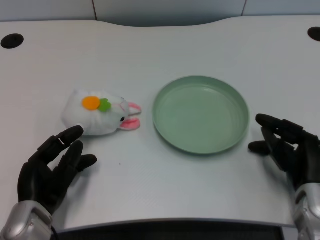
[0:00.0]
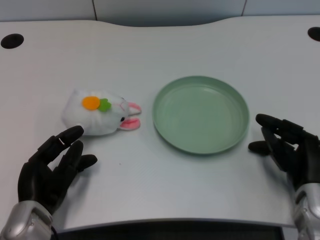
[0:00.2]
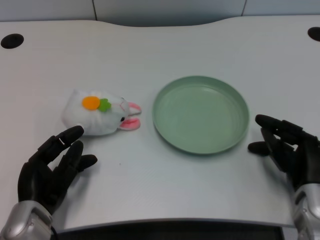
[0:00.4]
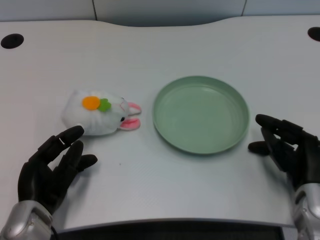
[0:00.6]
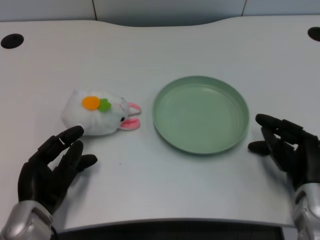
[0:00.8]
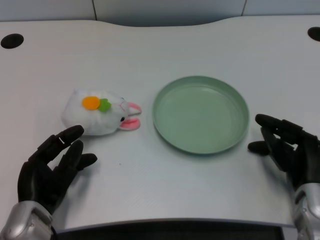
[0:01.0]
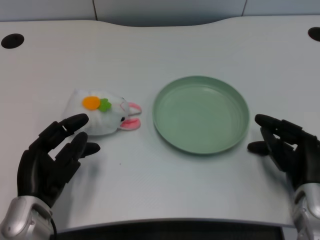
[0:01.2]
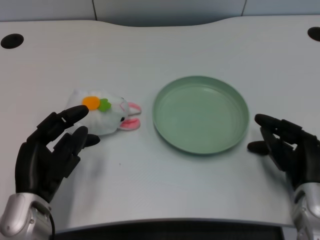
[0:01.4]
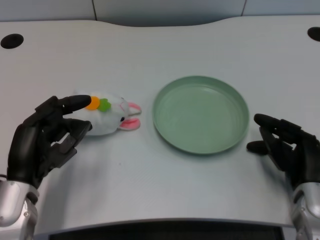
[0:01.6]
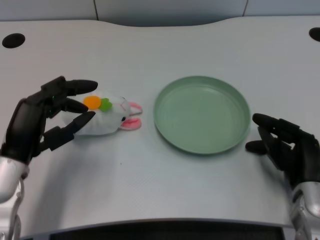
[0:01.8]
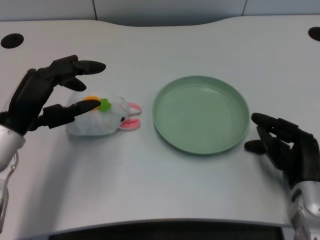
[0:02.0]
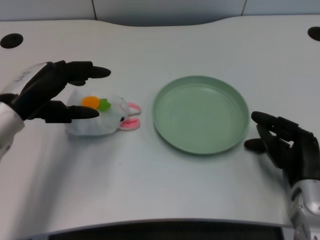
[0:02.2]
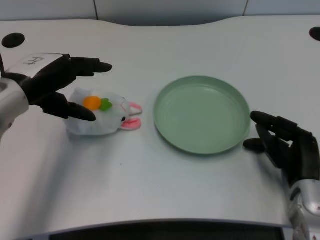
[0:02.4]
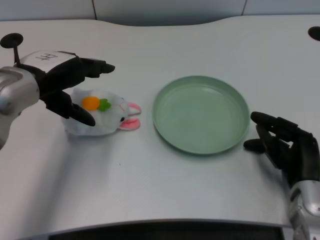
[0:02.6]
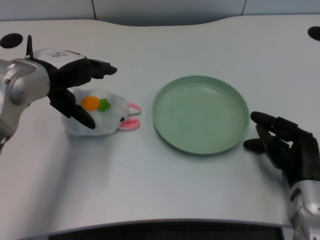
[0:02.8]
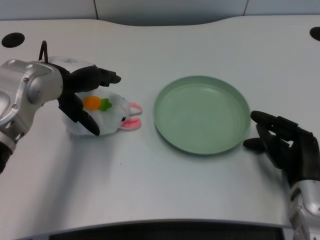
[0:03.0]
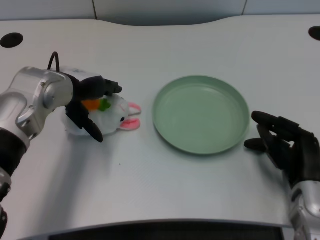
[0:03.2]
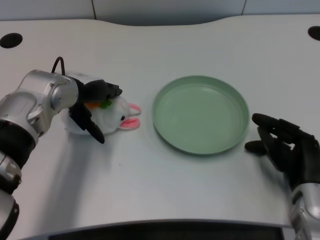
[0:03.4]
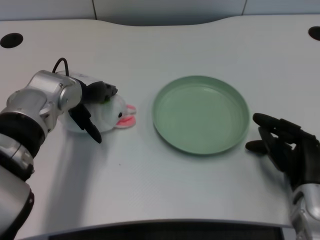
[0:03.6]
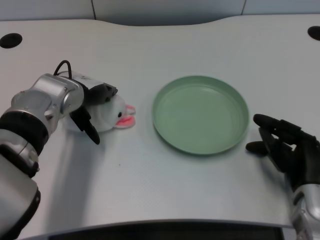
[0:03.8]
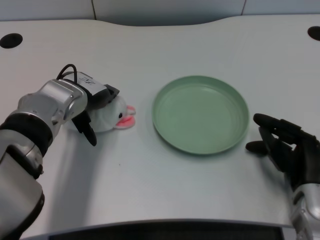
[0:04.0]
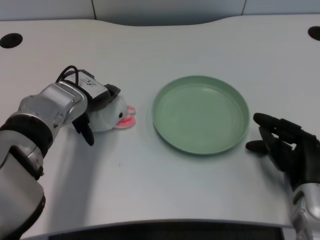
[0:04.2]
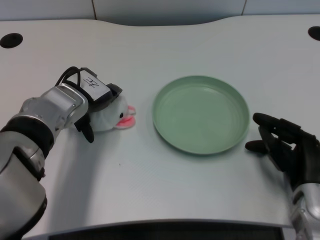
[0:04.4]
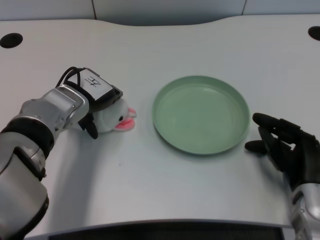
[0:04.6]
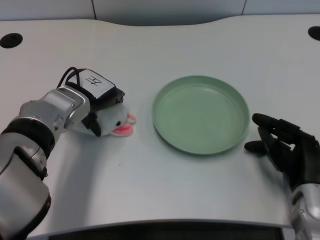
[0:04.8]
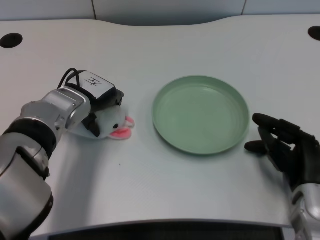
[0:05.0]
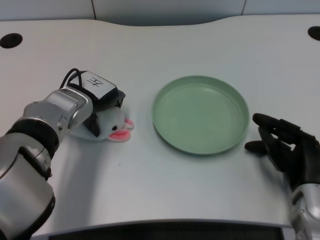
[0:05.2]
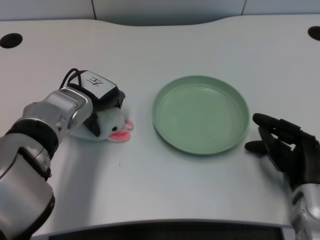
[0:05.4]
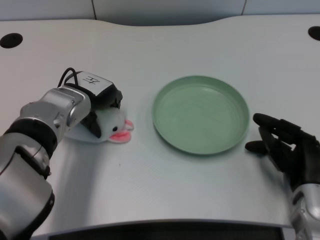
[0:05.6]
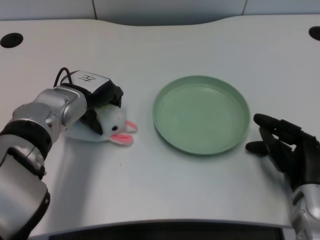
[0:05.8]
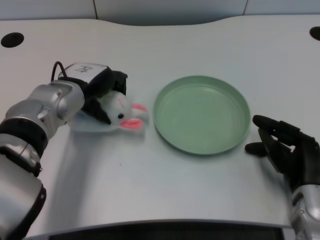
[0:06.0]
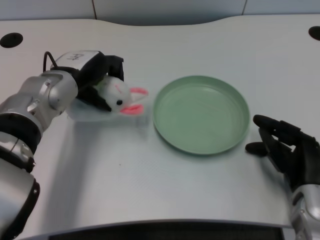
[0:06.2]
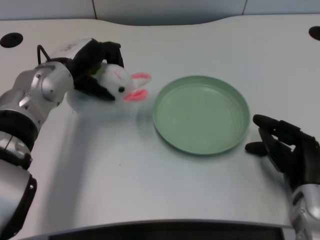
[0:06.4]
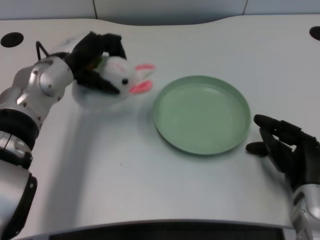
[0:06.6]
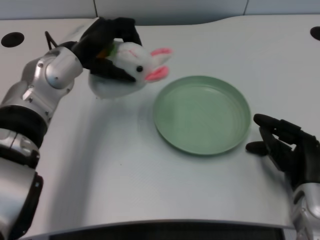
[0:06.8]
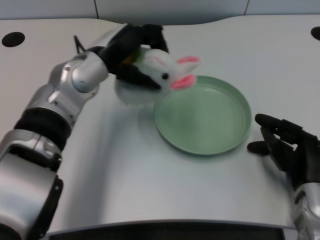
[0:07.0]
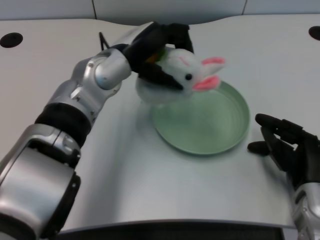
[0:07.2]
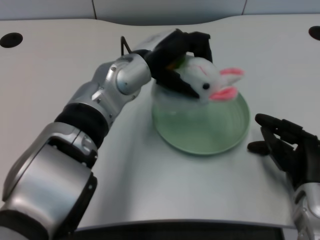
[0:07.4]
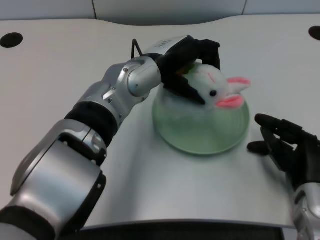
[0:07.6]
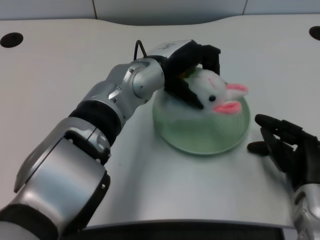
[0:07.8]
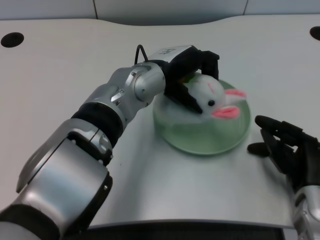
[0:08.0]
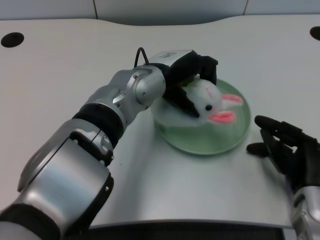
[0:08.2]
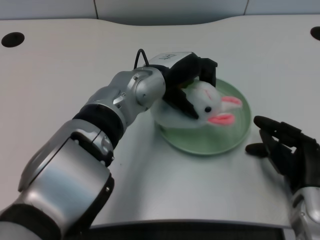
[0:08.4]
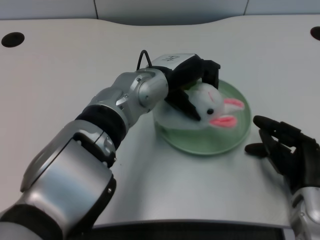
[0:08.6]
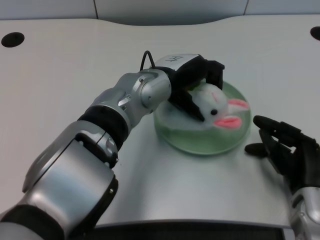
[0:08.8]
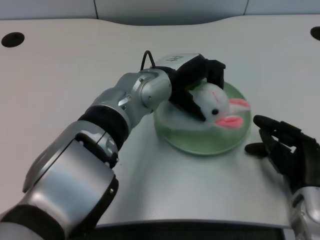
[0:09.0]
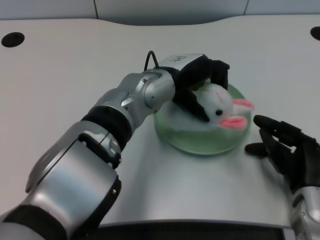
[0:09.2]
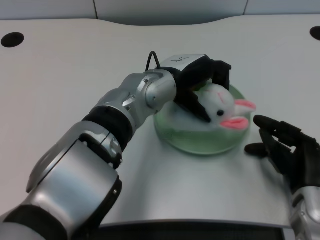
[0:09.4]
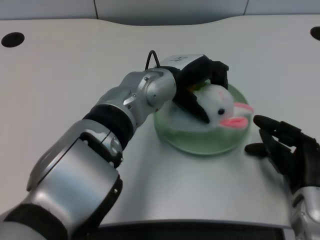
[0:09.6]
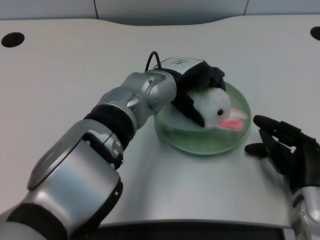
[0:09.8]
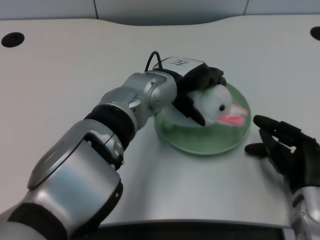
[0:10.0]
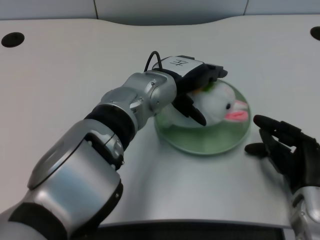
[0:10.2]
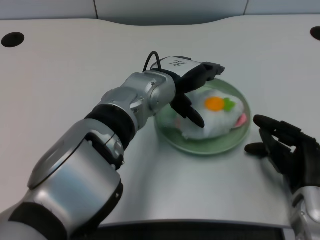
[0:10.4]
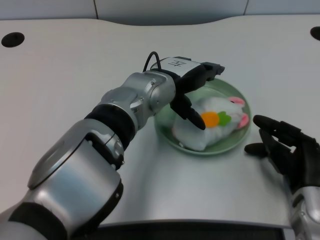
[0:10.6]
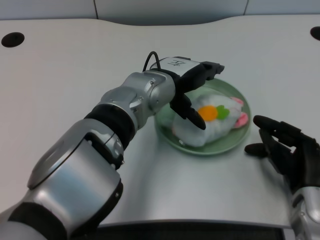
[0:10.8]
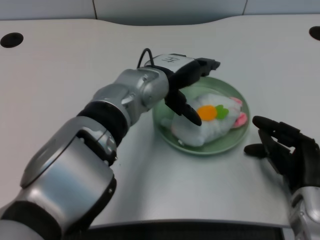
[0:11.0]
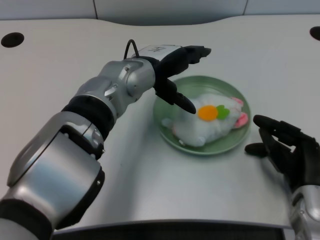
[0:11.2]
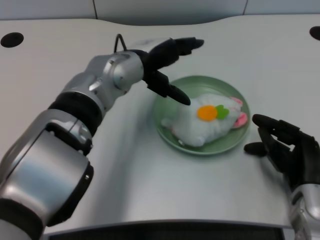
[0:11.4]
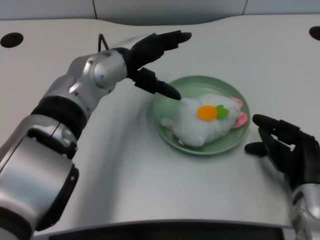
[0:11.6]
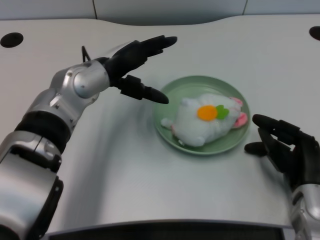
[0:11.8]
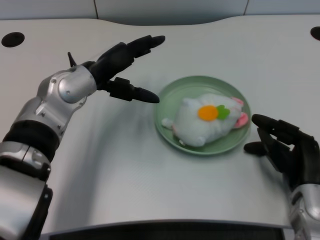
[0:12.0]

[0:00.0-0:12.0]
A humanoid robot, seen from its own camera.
Task of the whole recording: pick up the rabbit doll from the table and place it on the plate.
Step, 0:01.2 to 0:06.0: Grasp the rabbit doll with the left gripper.
Step, 0:06.2 to 0:10.4: Place the rabbit doll into the plate with the left gripper.
0:01.6 to 0:03.0: The left hand shifts approximately 15 cm forward and upward.
0:03.0 to 0:04.4: The left hand is displaced downward by approximately 5 cm.
0:06.0 to 0:07.6: The left hand moves to the right, about 10 cm.
0:09.0 to 0:10.4: The hands stay close to where they were, moving slightly.
0:10.4 to 0:12.0: The left hand is displaced to the left by some 10 cm.

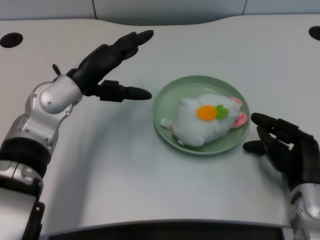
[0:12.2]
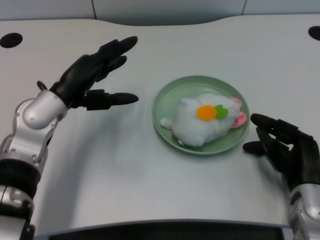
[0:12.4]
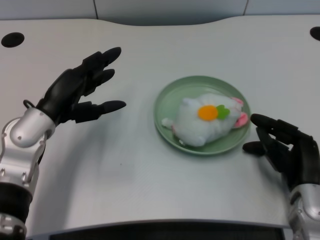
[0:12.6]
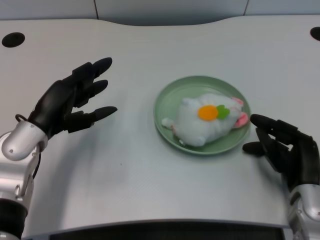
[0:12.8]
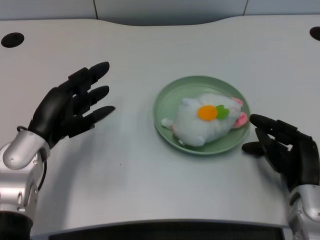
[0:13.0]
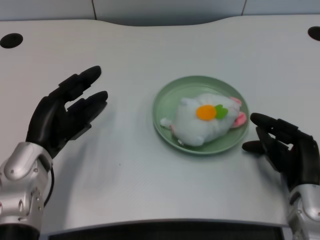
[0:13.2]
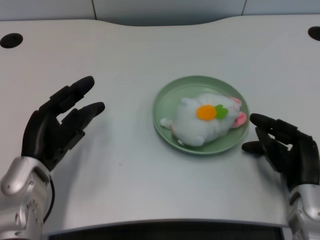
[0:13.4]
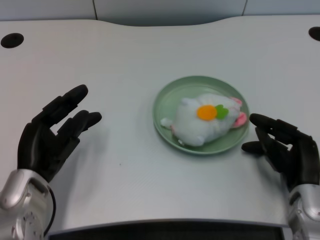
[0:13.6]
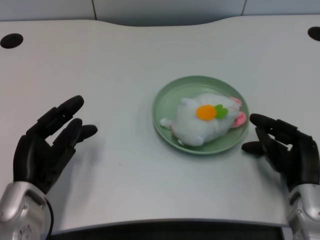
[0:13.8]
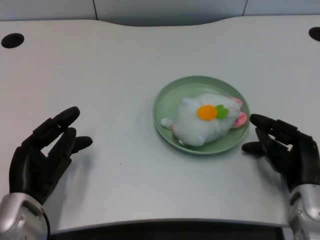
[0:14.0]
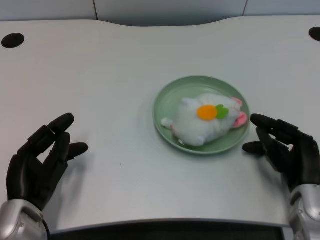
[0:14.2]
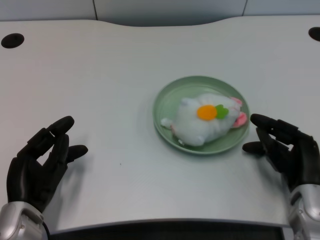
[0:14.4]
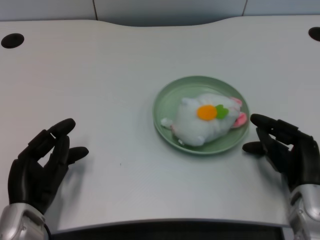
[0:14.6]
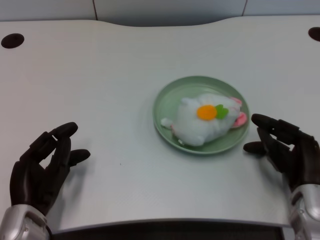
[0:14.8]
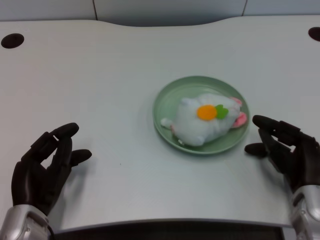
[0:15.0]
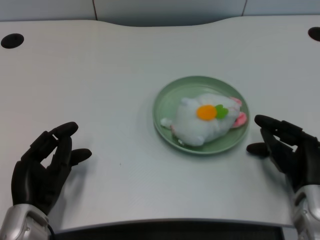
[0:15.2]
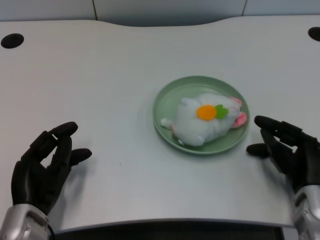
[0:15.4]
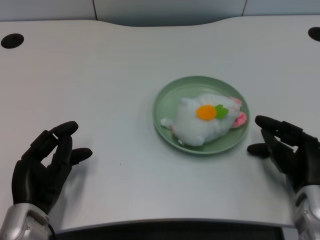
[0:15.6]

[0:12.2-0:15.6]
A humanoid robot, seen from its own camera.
Task of the whole recording: pick up the rabbit doll from the table and place it on the plate.
0:12.2 to 0:13.8: The left hand heads backward and downward, covering about 15 cm.
0:13.8 to 0:15.6: The hands stay close to where they were, moving slightly.

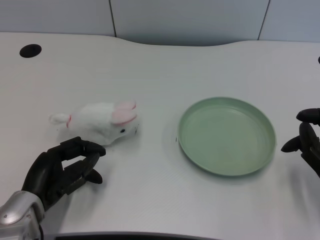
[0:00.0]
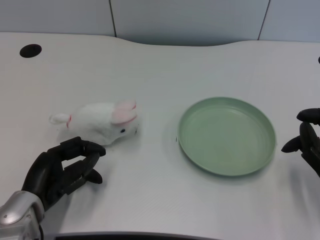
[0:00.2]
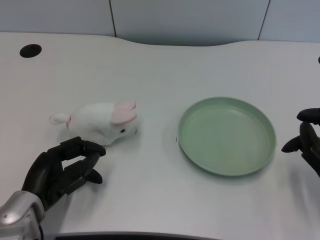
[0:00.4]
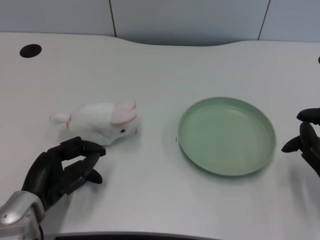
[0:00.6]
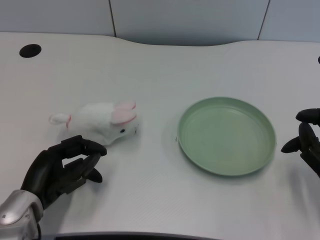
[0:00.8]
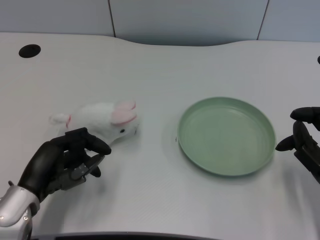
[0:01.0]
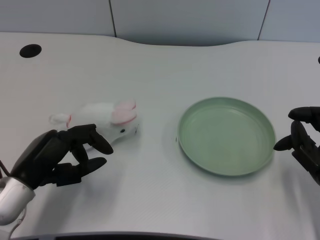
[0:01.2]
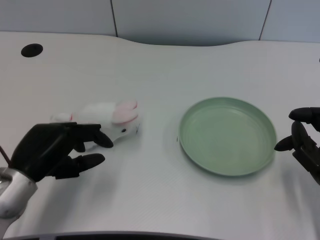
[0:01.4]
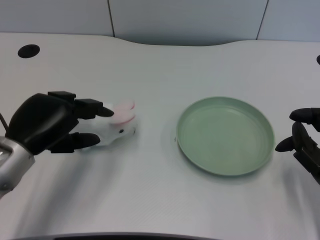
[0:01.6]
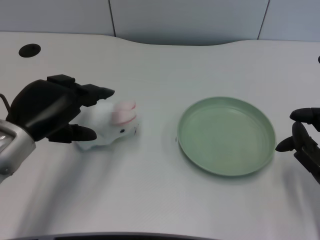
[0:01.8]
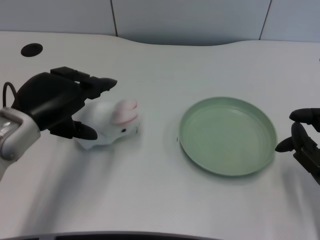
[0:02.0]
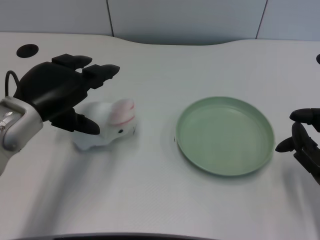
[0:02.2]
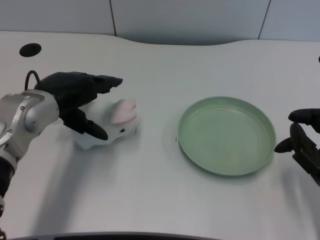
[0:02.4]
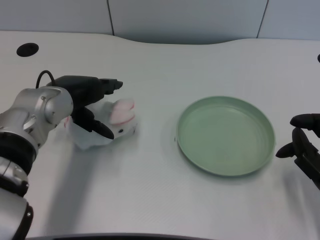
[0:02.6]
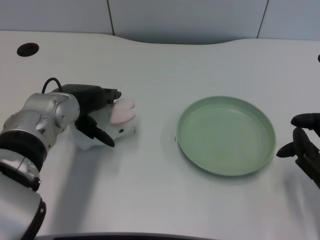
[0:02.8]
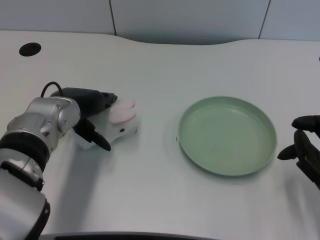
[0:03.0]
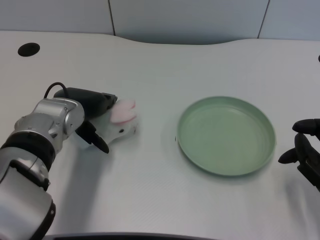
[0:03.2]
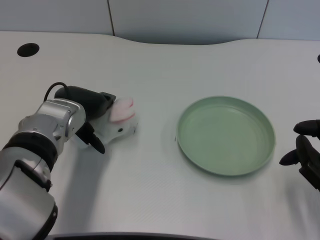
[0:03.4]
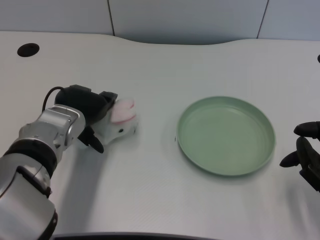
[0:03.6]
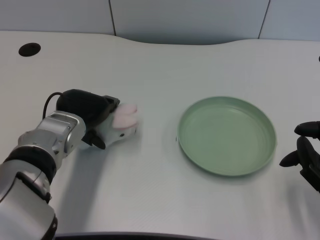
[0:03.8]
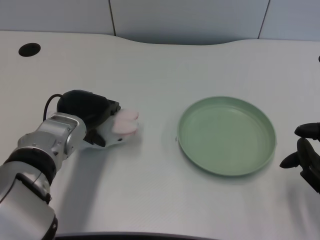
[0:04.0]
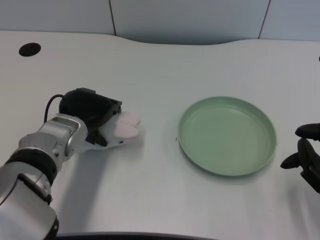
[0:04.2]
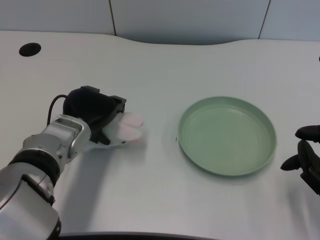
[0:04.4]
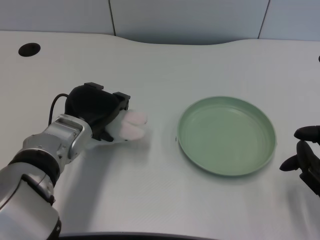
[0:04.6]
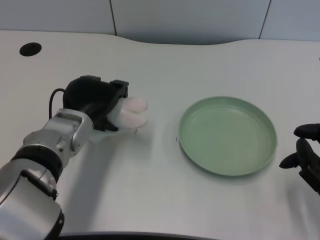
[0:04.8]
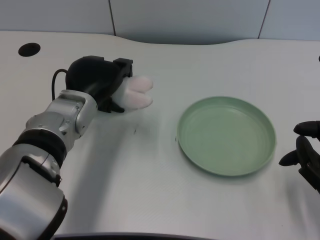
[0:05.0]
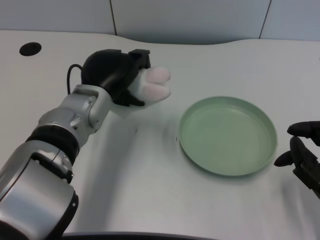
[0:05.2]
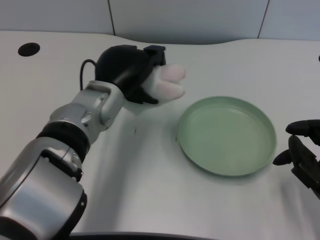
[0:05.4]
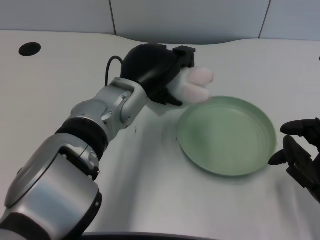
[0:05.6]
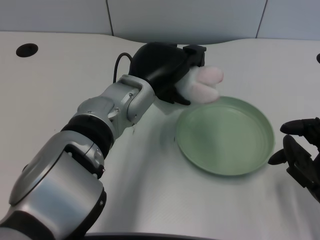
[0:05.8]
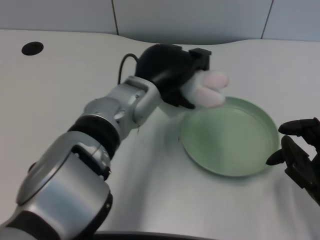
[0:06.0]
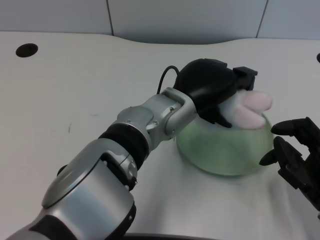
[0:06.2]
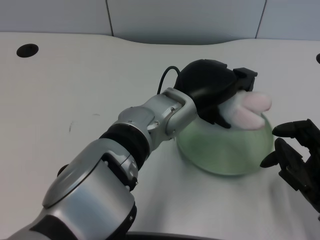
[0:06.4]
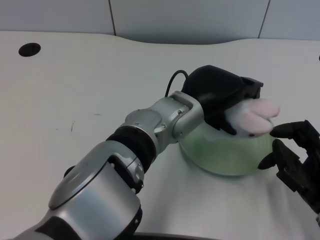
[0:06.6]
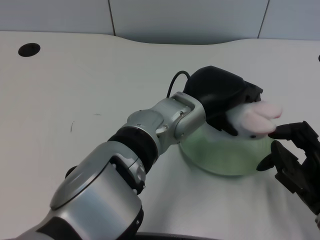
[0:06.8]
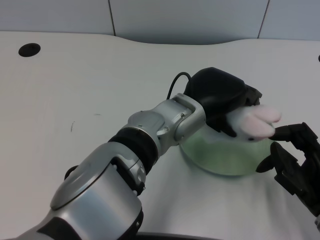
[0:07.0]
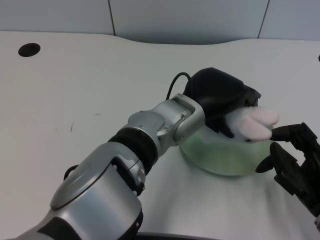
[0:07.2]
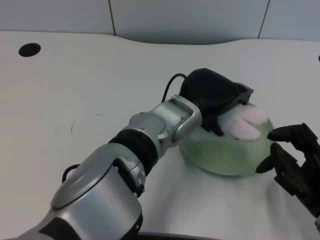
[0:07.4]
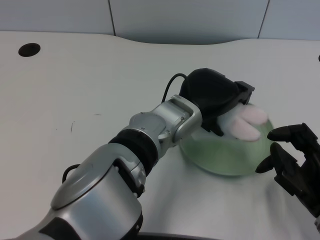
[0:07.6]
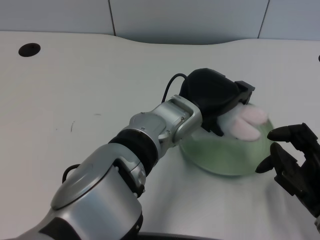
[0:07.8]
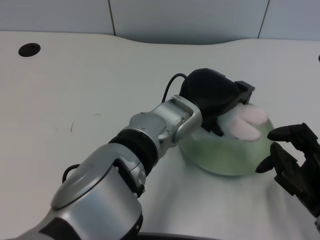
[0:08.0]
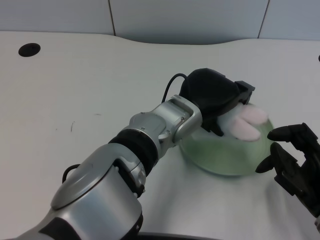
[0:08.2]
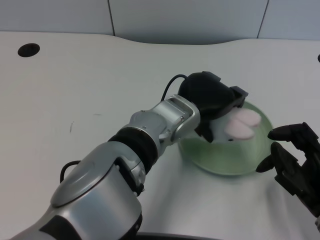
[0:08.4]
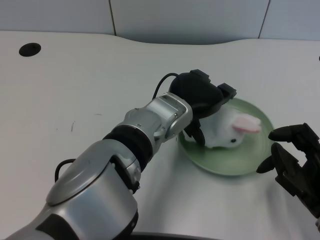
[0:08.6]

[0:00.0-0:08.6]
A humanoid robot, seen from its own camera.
Task of the whole recording: pick up the rabbit doll from the table and place it on the plate.
Step, 0:01.0 to 0:04.6: Grasp the rabbit doll with the left gripper.
Step, 0:04.8 to 0:08.6: Place the rabbit doll into the plate with the left gripper.
0:01.4 to 0:02.8: The left hand shifts approximately 10 cm forward and to the right.
0:04.4 to 0:05.8: The left hand moves to the right and upward, about 10 cm.
0:05.8 to 0:07.2: The left hand goes approximately 5 cm to the right.
